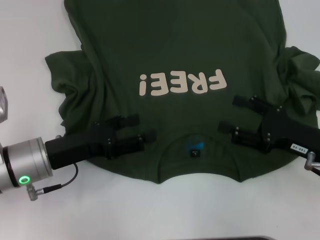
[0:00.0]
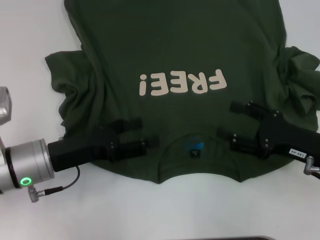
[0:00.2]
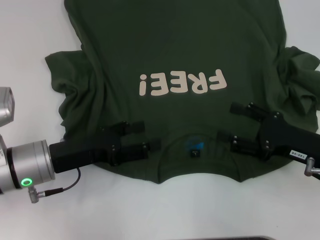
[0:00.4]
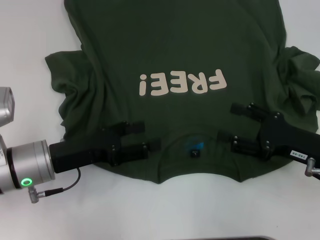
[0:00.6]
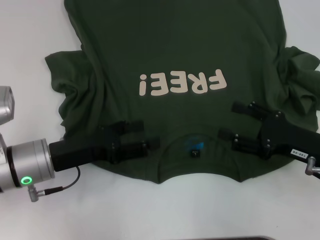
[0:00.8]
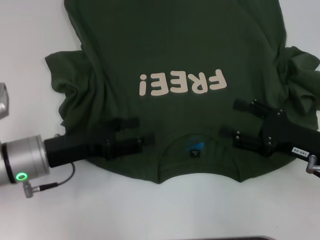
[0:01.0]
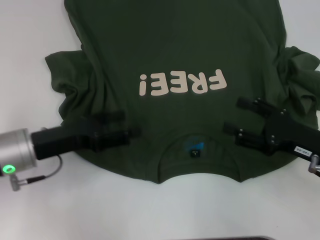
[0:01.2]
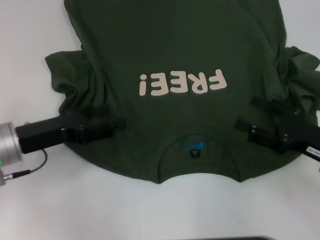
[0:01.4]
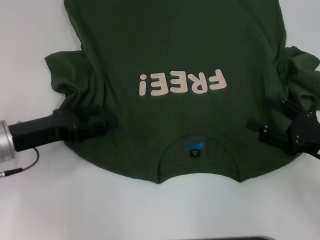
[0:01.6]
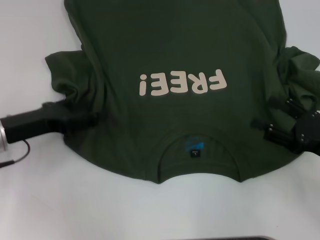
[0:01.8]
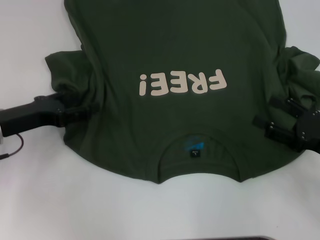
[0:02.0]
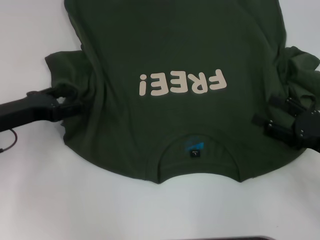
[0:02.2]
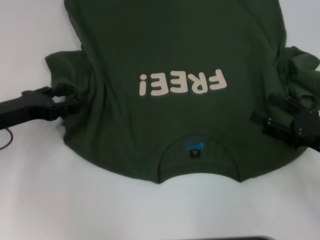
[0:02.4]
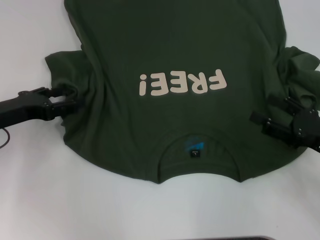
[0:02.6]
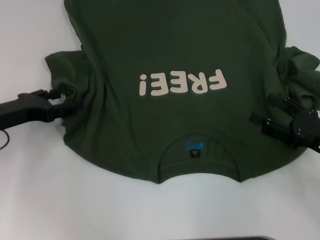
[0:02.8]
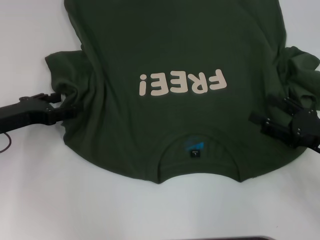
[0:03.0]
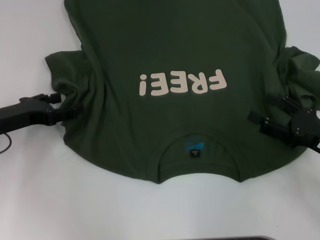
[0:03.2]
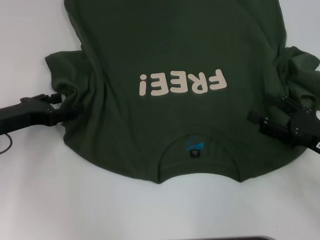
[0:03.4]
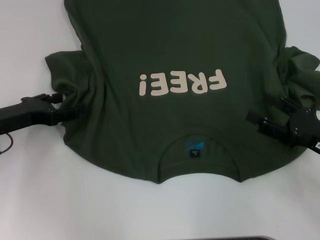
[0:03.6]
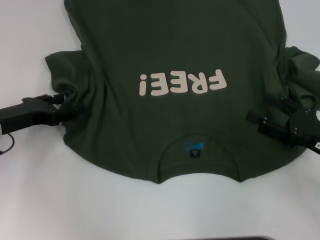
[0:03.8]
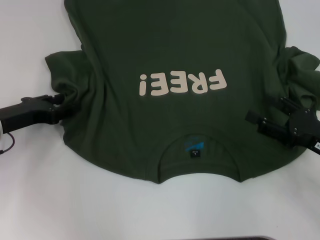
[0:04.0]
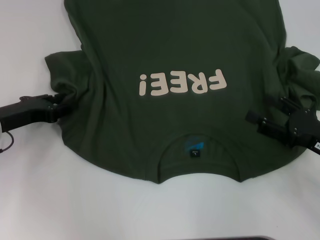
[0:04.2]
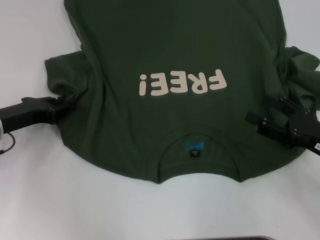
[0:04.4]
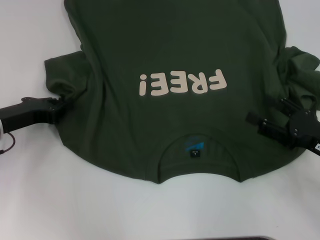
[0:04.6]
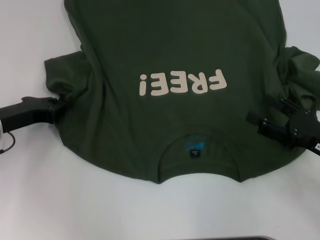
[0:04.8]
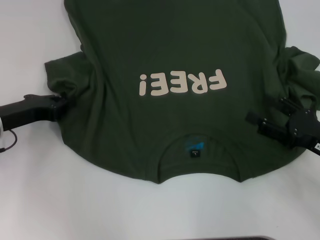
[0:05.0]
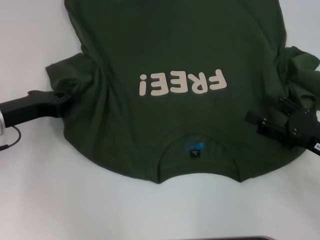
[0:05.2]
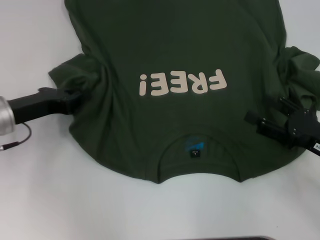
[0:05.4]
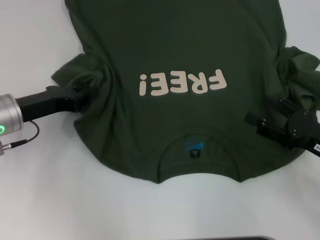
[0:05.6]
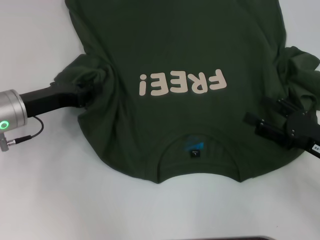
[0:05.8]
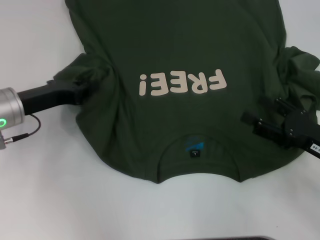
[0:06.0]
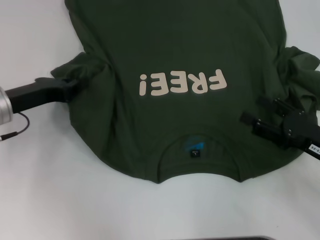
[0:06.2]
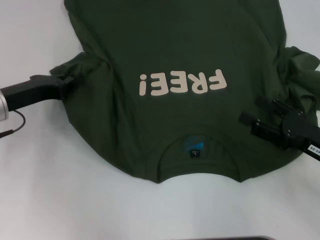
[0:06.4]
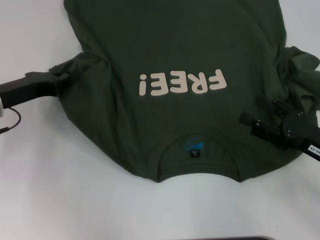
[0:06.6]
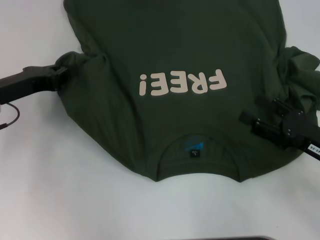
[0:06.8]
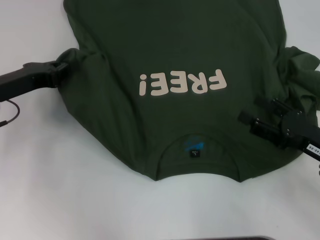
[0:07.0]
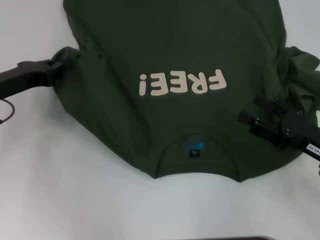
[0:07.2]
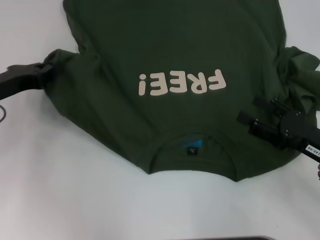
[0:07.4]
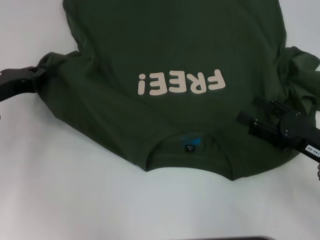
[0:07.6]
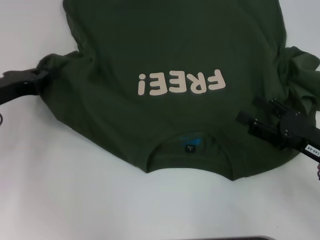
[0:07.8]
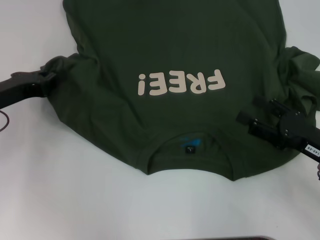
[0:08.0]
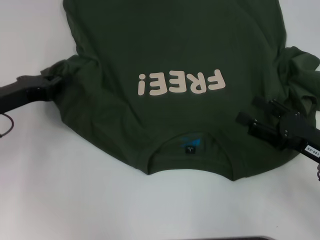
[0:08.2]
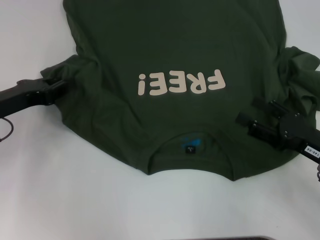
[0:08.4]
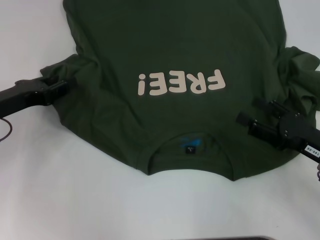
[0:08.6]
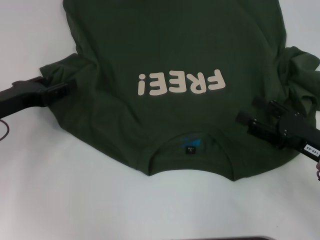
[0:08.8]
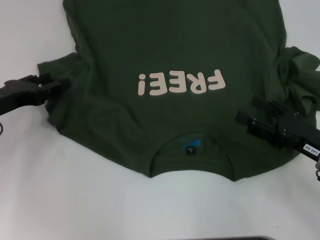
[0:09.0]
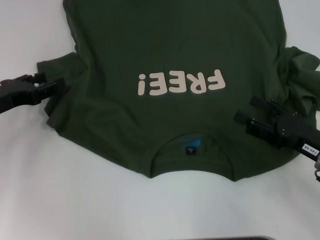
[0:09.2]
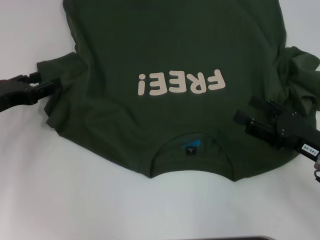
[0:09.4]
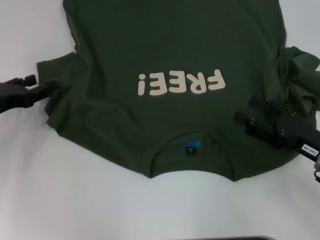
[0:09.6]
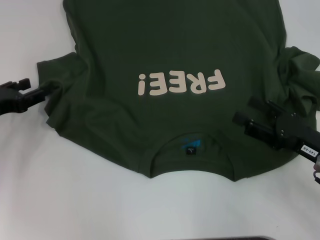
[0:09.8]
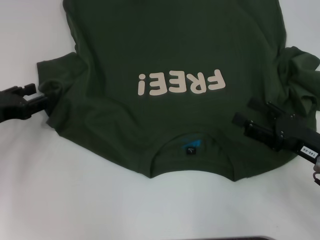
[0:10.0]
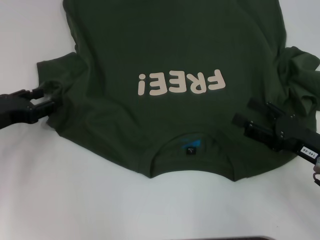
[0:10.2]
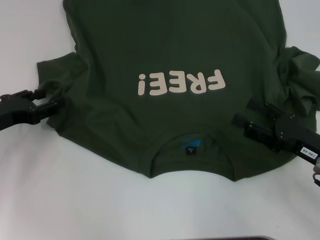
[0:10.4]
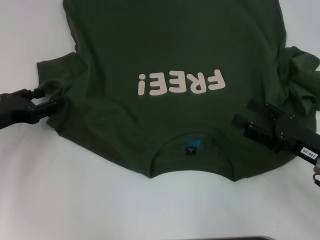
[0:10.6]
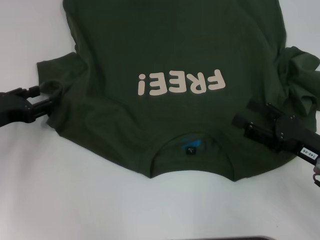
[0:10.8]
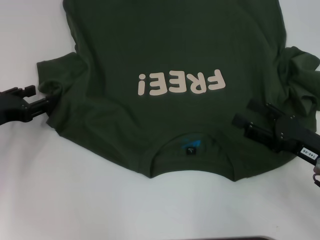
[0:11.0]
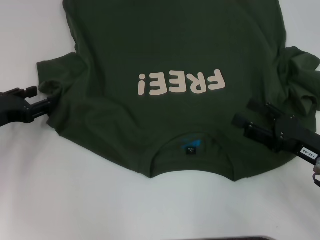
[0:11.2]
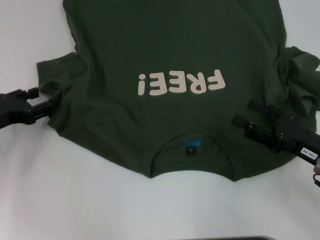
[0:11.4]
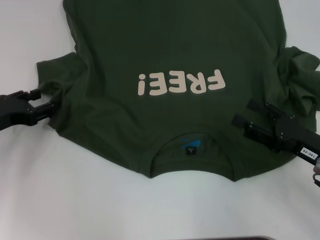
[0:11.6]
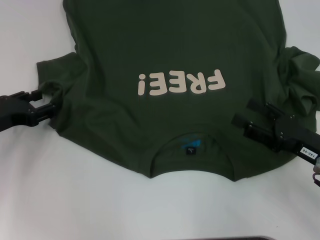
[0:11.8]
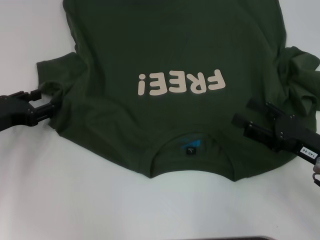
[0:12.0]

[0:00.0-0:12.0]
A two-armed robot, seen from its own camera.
0:00.0 to 0:01.6: The left gripper moves some 5 cm.
0:01.6 to 0:03.0: The grippers move only a little.
0:03.0 to 0:04.4: The left gripper closes up.
0:04.4 to 0:06.0: The left gripper closes its fingers.
0:06.0 to 0:07.6: The left gripper changes place by roughly 5 cm.
0:07.6 to 0:09.0: The left gripper opens.
0:09.0 to 0:10.4: The grippers stay close to where they were, moving slightly.
0:10.4 to 0:12.0: Both grippers stay about where they are.

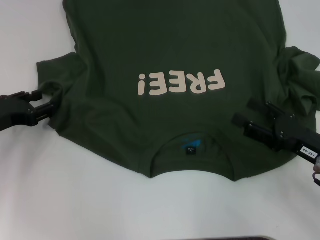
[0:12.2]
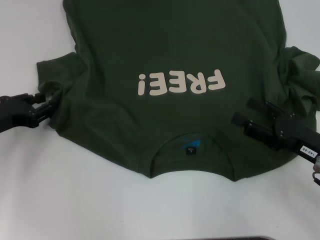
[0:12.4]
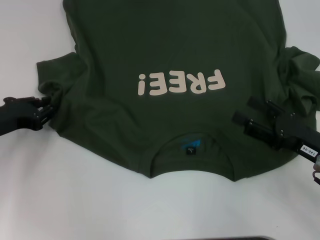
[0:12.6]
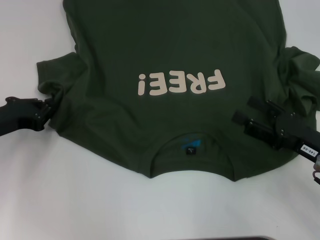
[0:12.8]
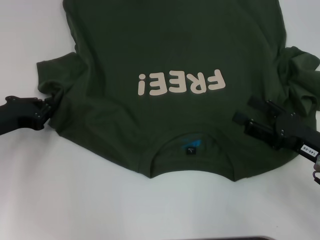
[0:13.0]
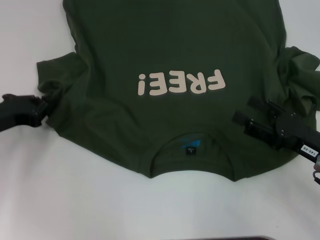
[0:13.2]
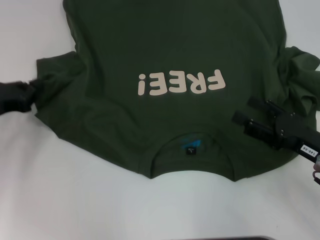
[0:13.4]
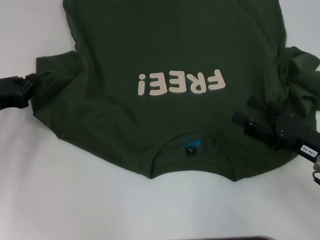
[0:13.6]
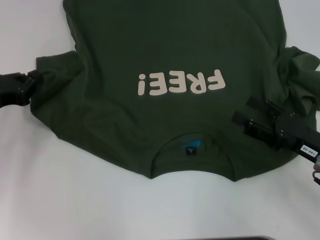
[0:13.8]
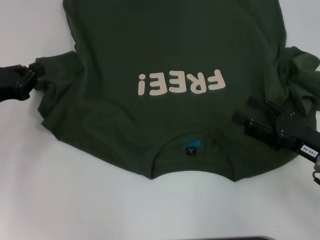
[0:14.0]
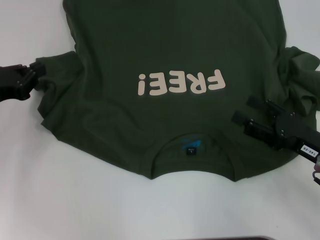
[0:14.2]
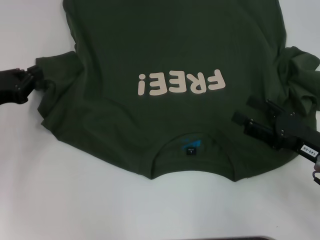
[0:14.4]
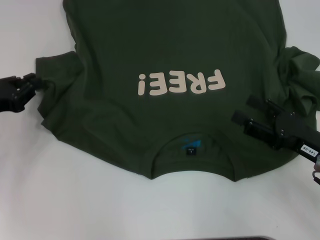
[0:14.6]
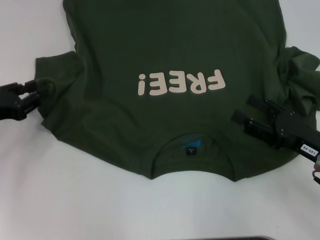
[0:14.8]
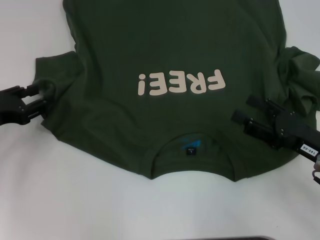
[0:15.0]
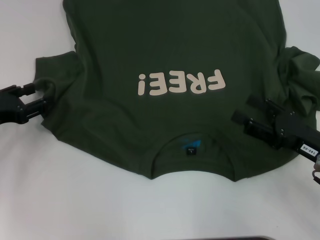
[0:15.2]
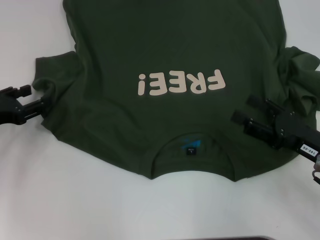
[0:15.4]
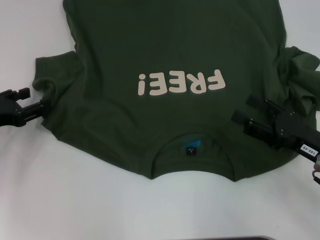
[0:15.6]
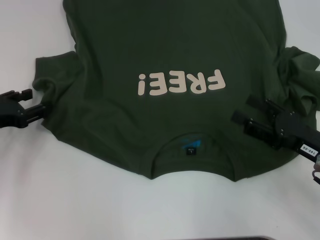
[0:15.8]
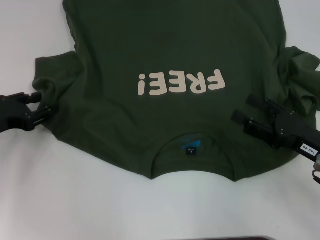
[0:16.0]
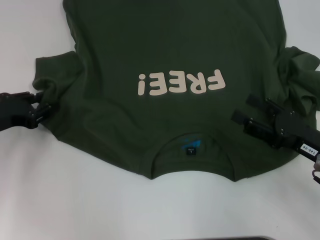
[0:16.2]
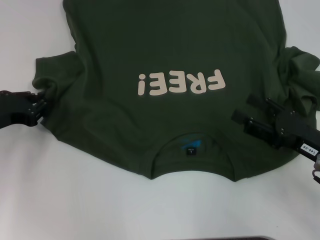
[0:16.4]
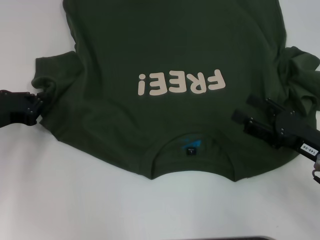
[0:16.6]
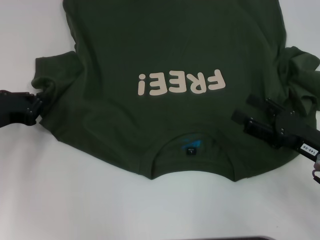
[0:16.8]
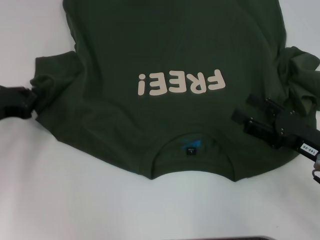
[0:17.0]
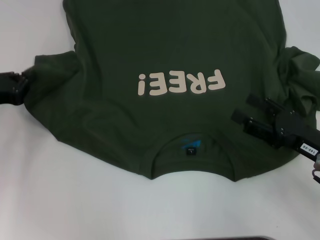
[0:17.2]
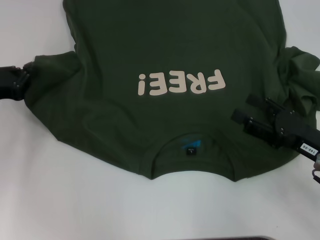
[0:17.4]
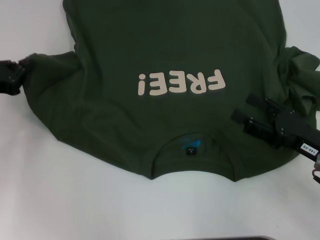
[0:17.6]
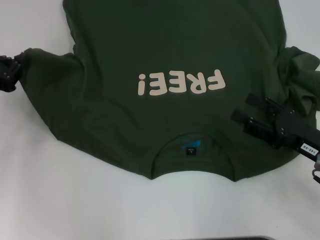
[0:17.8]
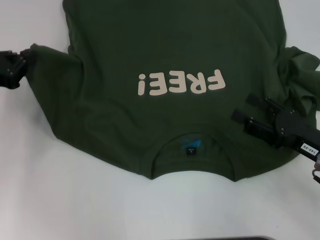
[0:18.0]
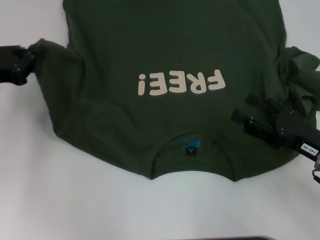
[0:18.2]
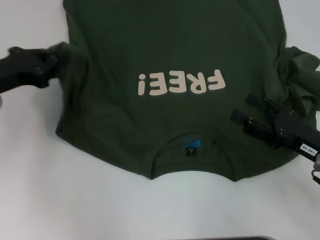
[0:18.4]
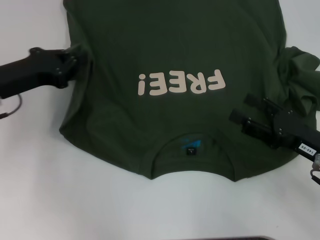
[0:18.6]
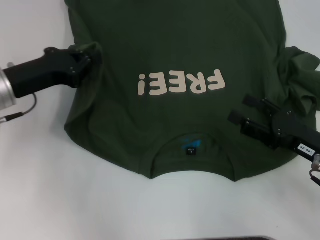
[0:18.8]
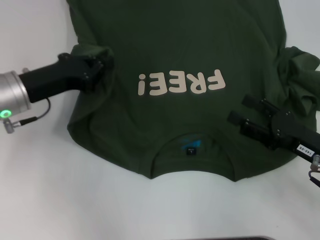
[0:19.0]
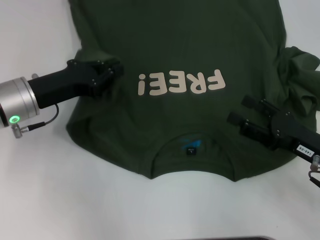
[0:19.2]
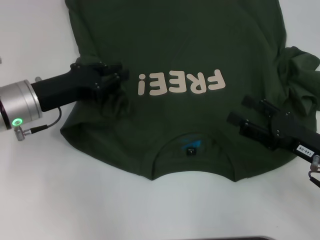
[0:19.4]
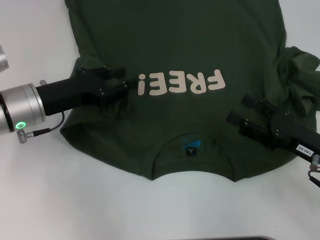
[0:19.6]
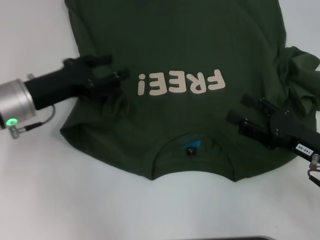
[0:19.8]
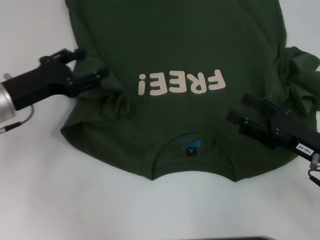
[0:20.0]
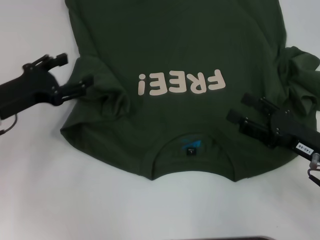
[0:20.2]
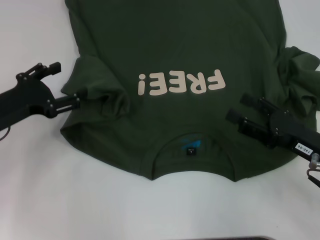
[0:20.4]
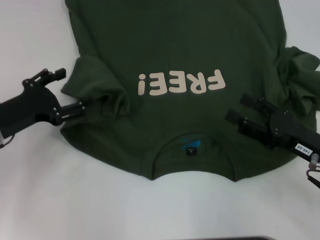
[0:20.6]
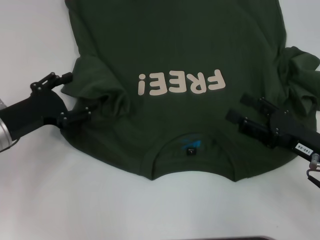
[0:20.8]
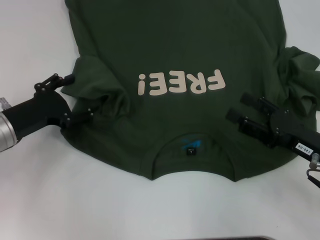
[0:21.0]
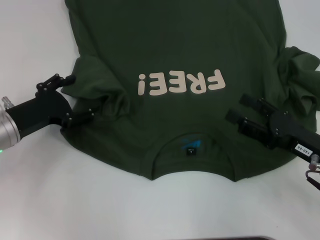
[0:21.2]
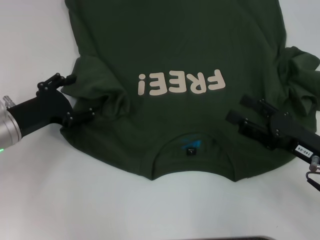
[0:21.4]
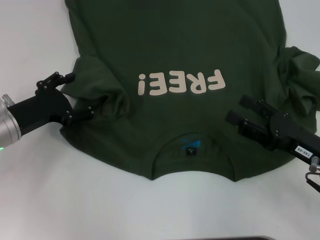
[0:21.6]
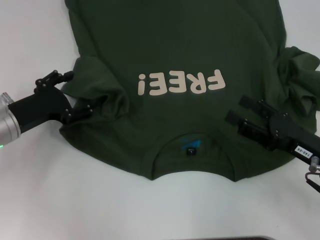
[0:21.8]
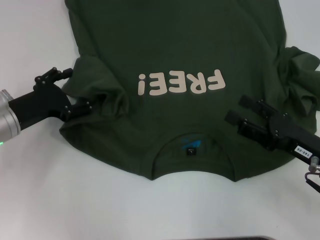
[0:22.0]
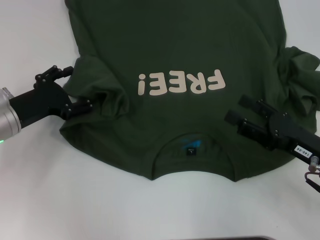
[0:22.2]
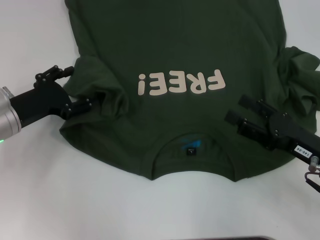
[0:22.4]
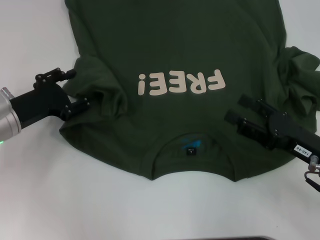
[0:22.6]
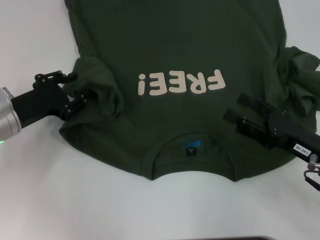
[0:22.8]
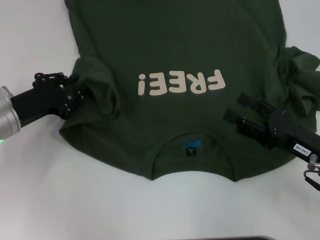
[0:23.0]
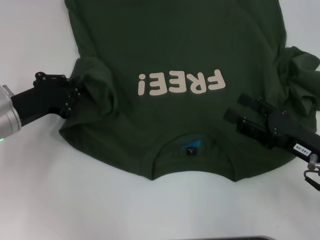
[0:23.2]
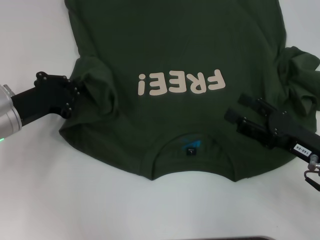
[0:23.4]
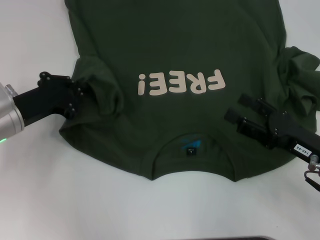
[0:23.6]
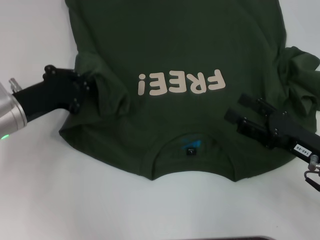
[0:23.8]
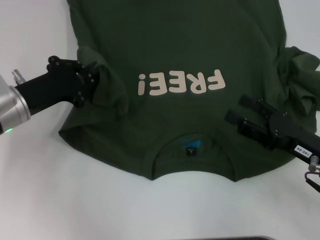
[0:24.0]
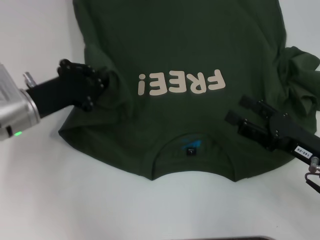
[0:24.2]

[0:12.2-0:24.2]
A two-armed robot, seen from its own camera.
0:12.2 to 0:13.8: The left gripper closes.
0:13.8 to 0:15.2: The left gripper opens.
0:15.2 to 0:16.6: The grippers make only small movements.
0:16.6 to 0:18.2: The left gripper heads upward, covering roughly 5 cm.
0:18.2 to 0:19.8: The left gripper travels to the right by approximately 10 cm, and opens up.
0:19.8 to 0:21.2: The left gripper shifts by approximately 5 cm, and opens its fingers.
0:21.2 to 0:22.6: The grippers move only a little.
0:22.6 to 0:24.2: The left gripper closes its fingers.
